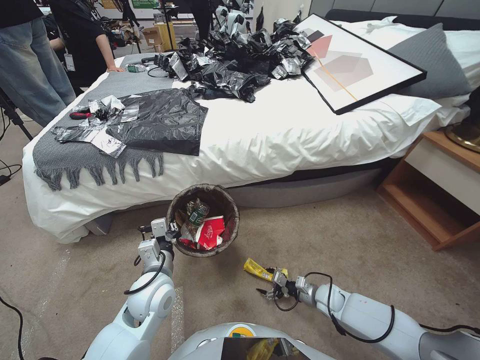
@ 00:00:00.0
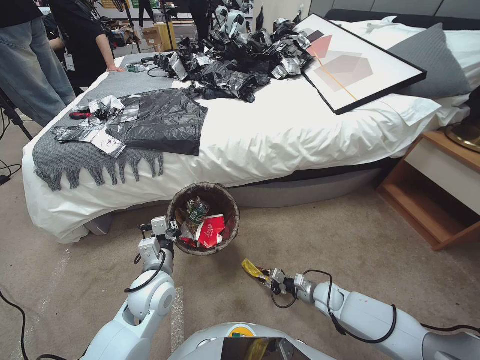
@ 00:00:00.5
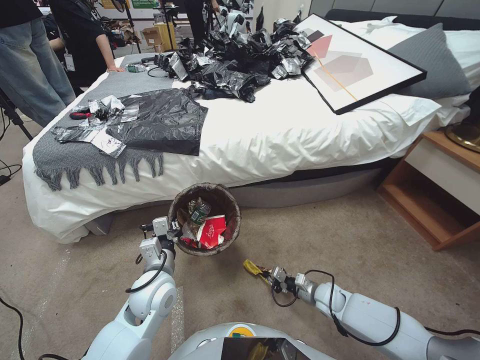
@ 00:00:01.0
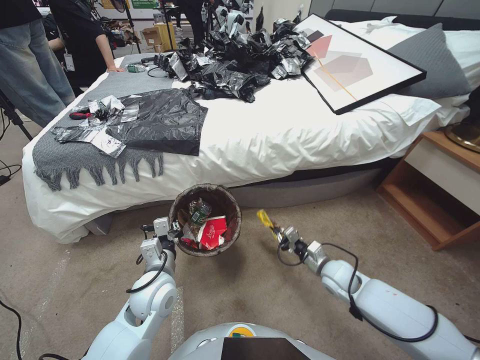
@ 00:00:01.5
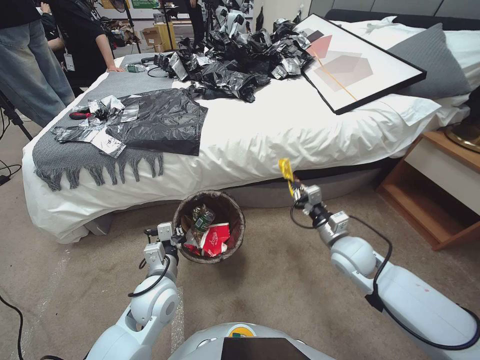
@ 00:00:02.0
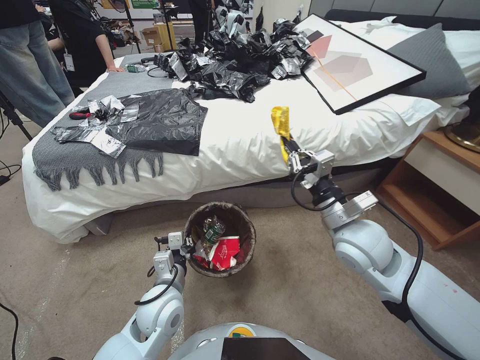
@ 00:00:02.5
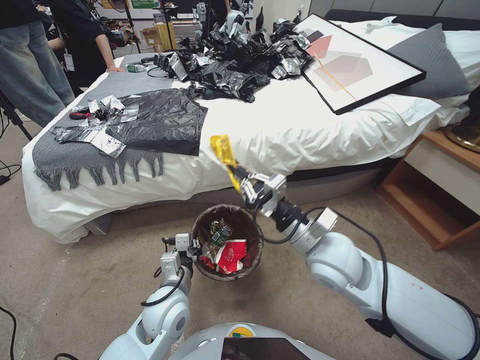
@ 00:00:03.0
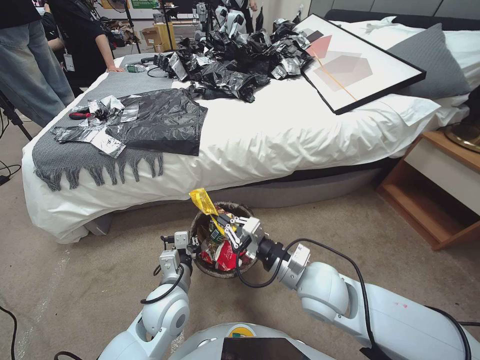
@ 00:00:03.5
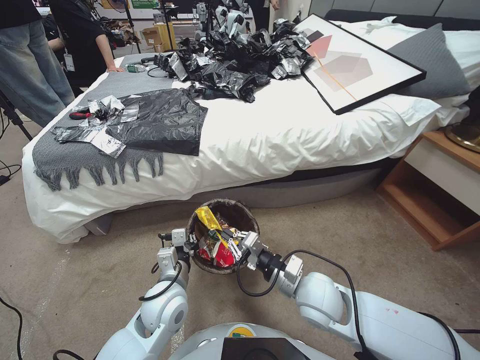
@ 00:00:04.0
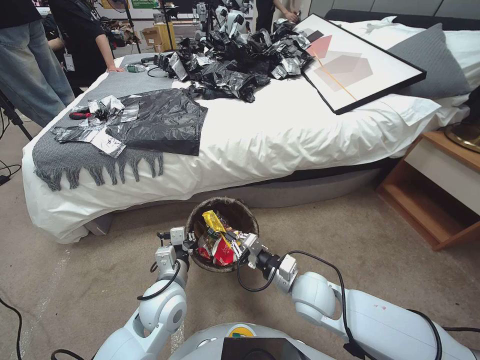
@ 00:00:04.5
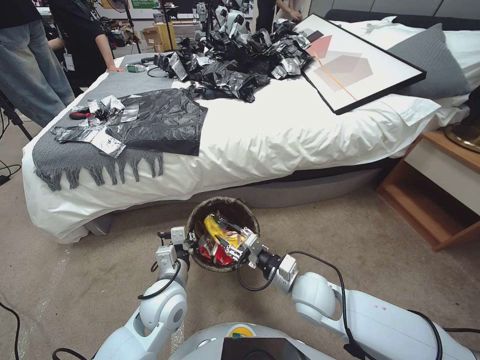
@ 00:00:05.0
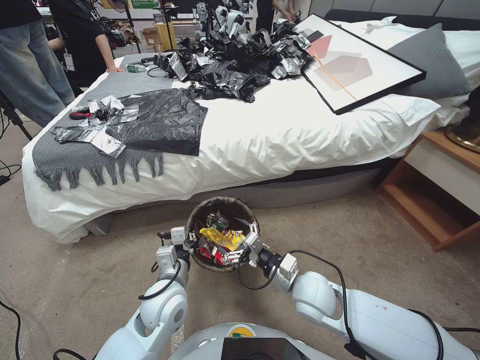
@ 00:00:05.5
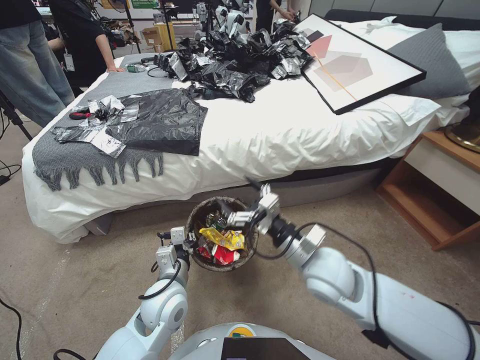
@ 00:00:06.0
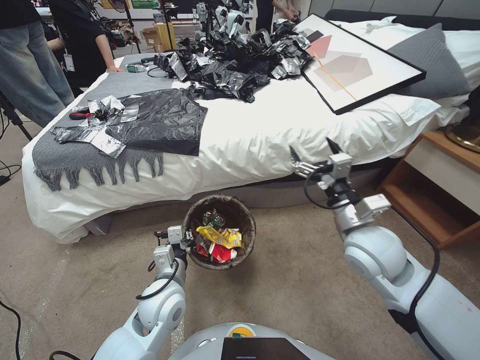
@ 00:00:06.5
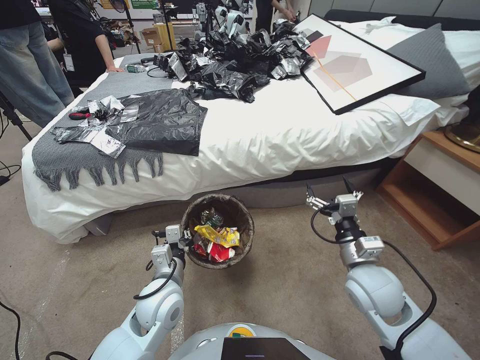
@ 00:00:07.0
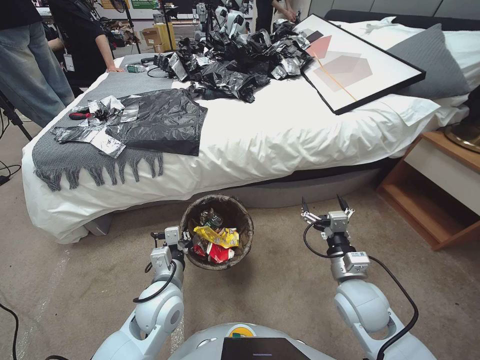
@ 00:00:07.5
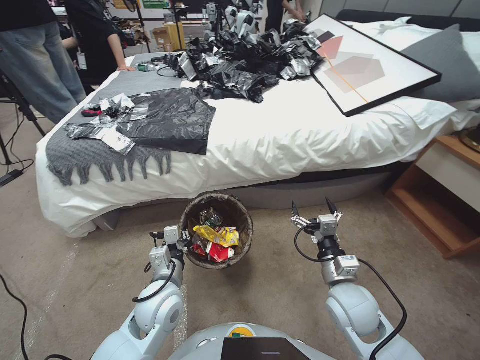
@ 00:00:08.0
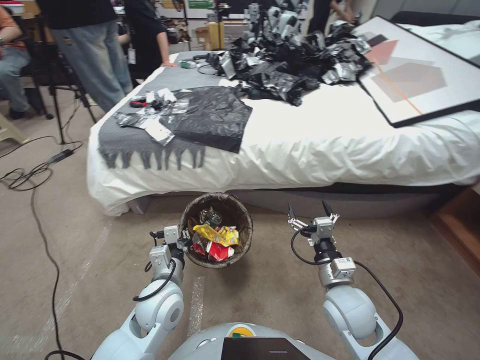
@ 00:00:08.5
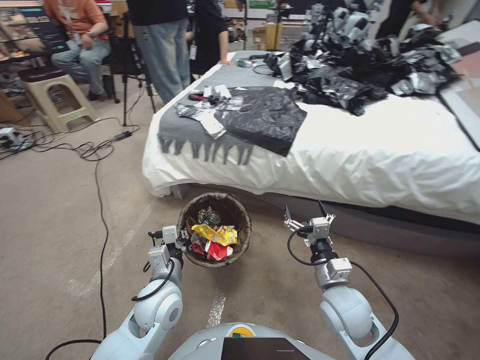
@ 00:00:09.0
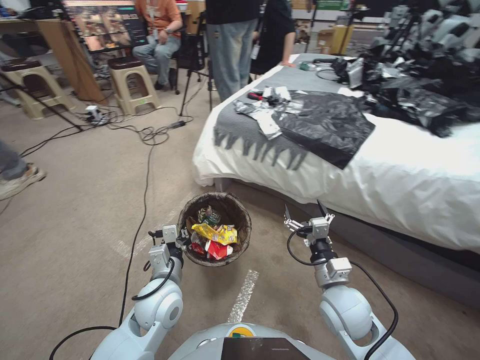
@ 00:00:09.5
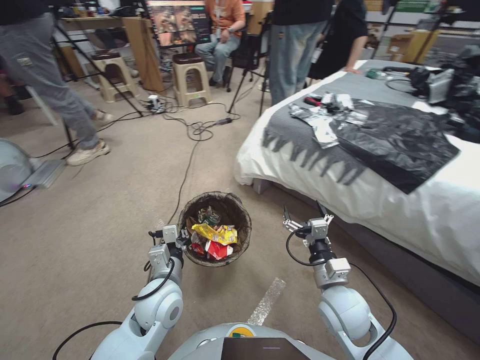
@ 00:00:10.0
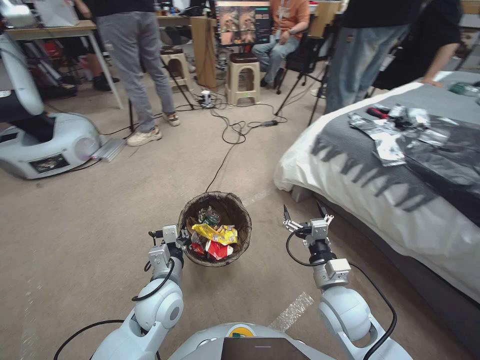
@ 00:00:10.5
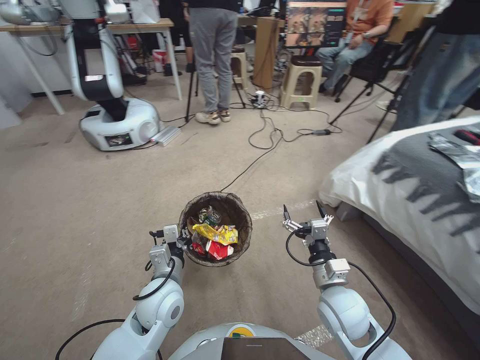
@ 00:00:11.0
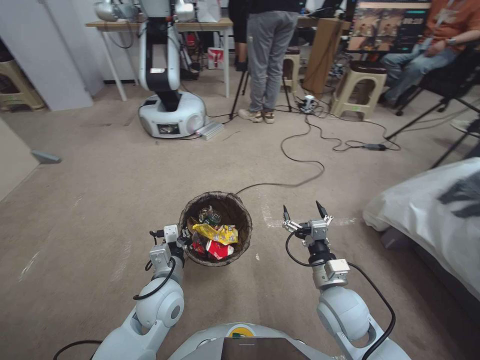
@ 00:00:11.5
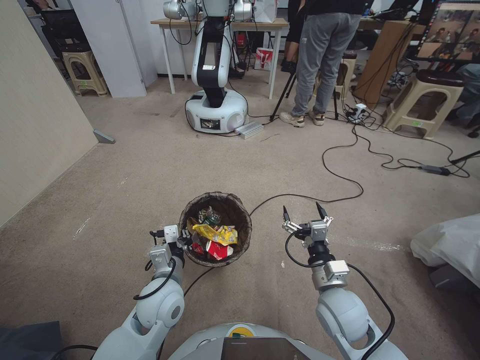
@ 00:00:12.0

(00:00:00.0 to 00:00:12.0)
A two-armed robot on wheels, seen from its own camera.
Task of the whole recording: Pick up the trash bin, then pick up the garbage from the floor and place it into the trash bin.
00:00:00.0 - 00:00:02.0: The right gripper goes some 20 cm upward, and closes up.
00:00:02.0 - 00:00:04.0: The right gripper moves to the left and backward, approximately 15 cm, and travels upward and back again, roughly 15 cm each way.
00:00:04.0 - 00:00:06.0: The right gripper opens its fingers.
00:00:06.0 - 00:00:08.0: The right gripper is displaced to the right and downward by some 10 cm.

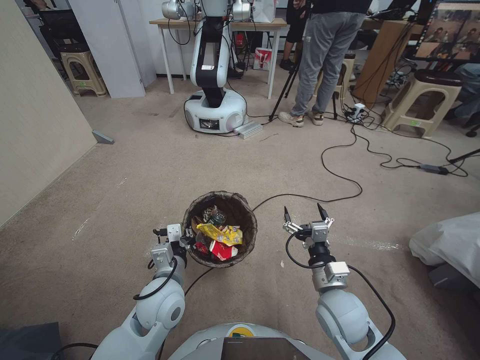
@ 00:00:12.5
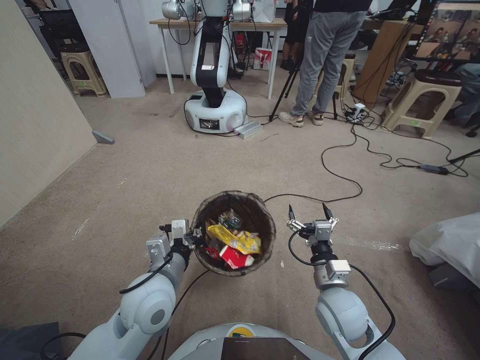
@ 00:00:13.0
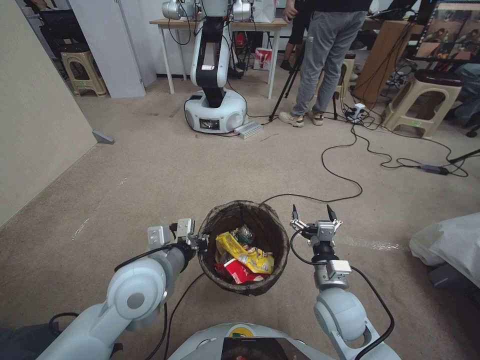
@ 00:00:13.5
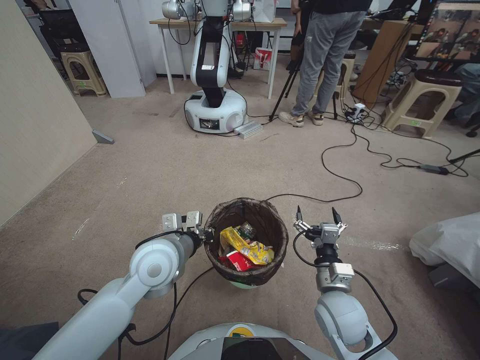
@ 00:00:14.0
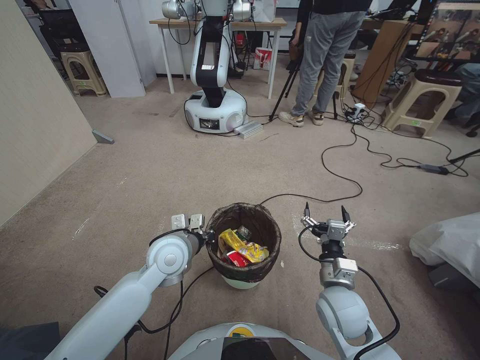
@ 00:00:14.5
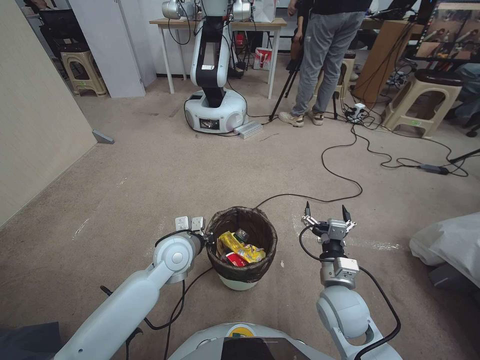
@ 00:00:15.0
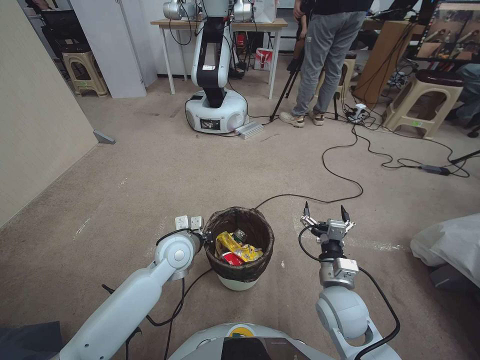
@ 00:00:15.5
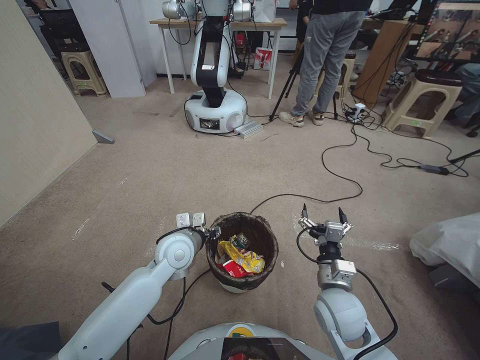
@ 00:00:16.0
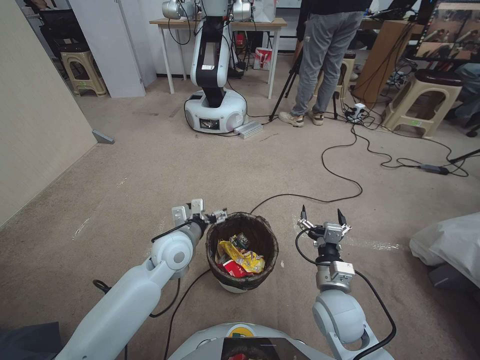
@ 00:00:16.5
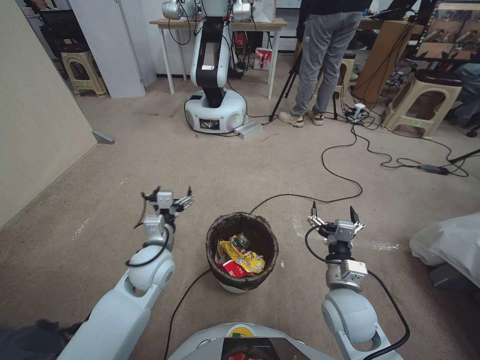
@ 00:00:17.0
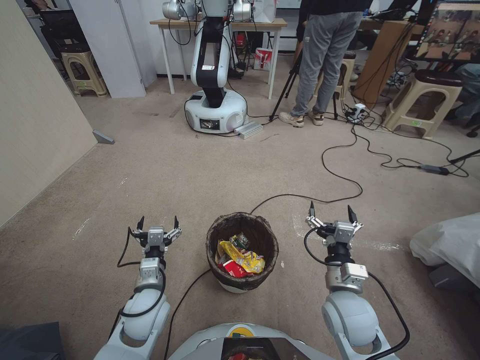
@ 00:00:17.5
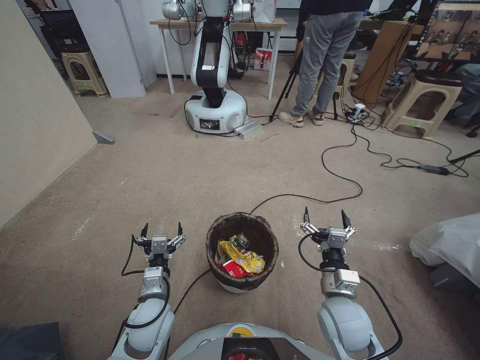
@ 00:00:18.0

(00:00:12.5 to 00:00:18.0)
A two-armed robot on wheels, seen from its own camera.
Task of the whole recording: Pick up the trash bin, then pick up the garbage from the floor and place it into the trash bin.
00:00:12.5 - 00:00:14.5: The left gripper is displaced upward and forward by approximately 10 cm.
00:00:14.5 - 00:00:16.0: The left gripper goes roughly 5 cm downward, and opens up.
00:00:16.0 - 00:00:18.0: The left gripper is displaced backward and downward by approximately 15 cm, and opens its fingers.
